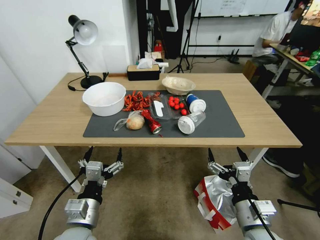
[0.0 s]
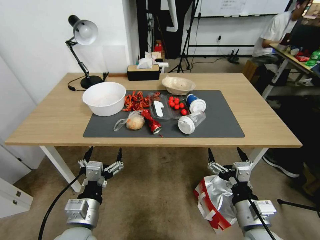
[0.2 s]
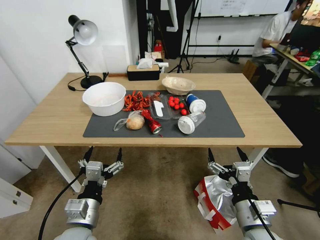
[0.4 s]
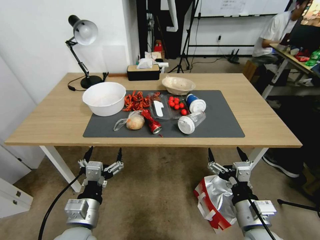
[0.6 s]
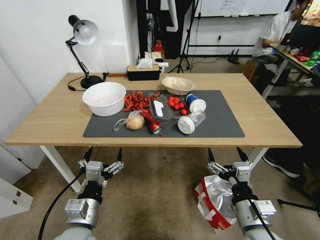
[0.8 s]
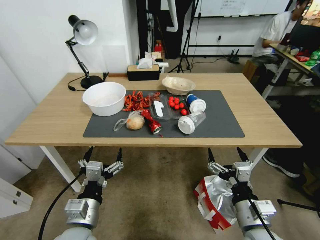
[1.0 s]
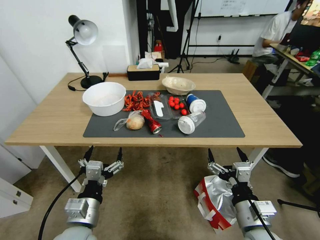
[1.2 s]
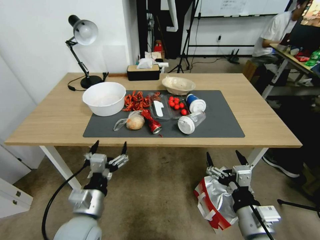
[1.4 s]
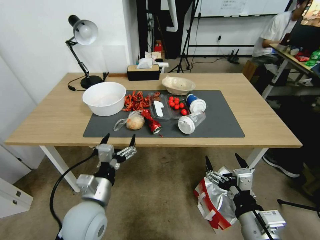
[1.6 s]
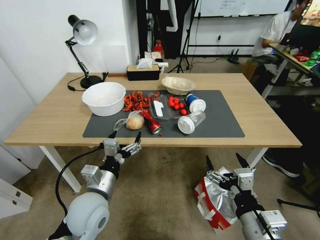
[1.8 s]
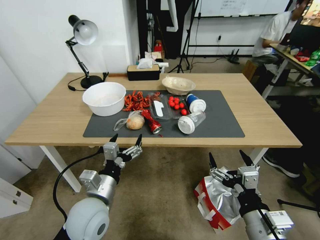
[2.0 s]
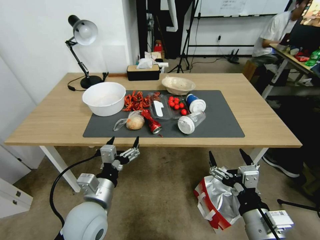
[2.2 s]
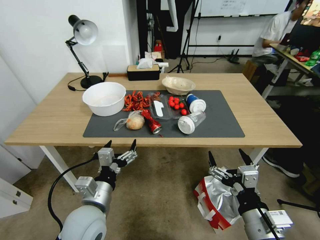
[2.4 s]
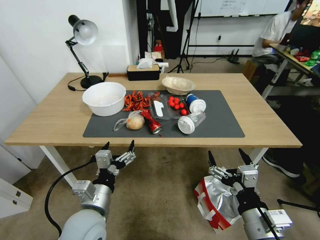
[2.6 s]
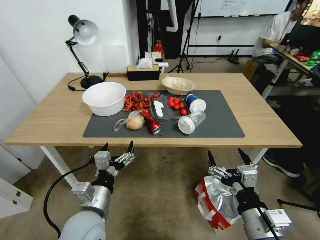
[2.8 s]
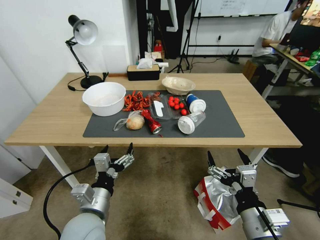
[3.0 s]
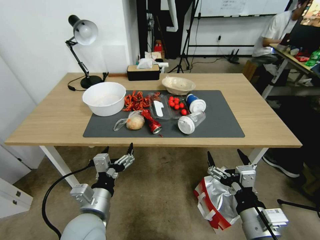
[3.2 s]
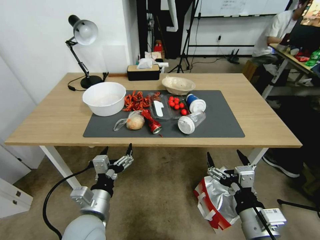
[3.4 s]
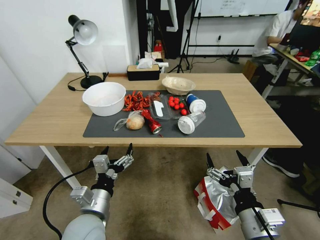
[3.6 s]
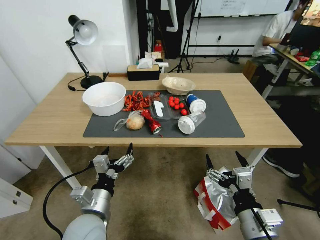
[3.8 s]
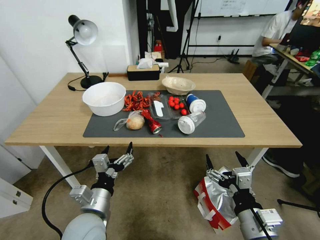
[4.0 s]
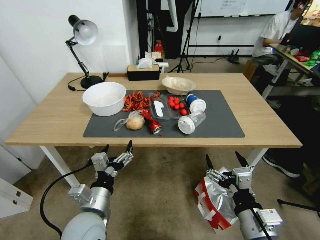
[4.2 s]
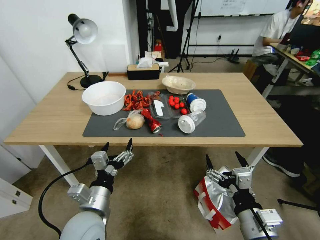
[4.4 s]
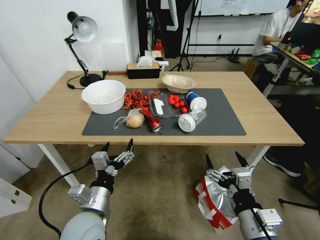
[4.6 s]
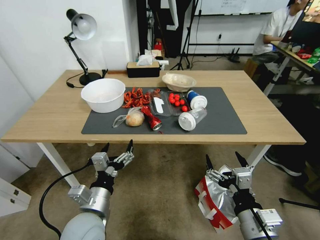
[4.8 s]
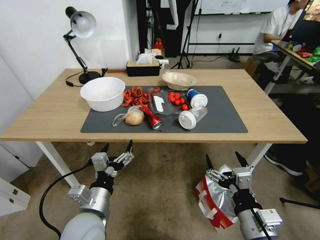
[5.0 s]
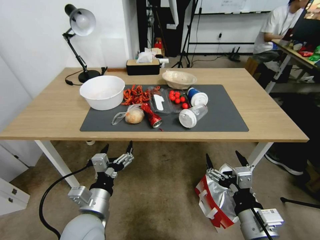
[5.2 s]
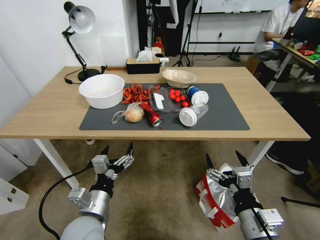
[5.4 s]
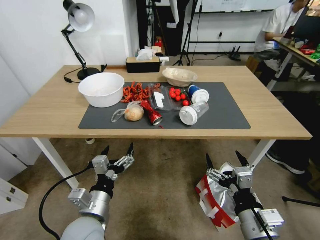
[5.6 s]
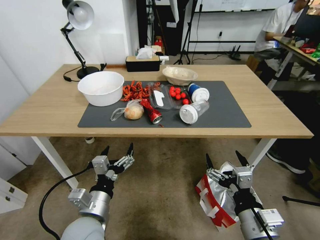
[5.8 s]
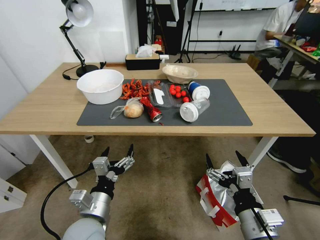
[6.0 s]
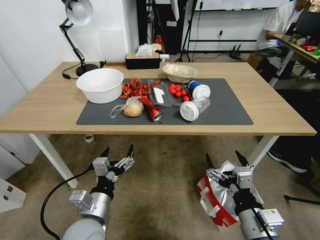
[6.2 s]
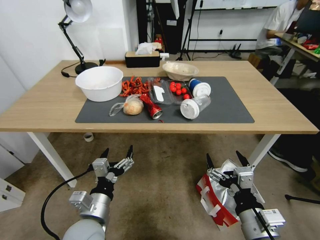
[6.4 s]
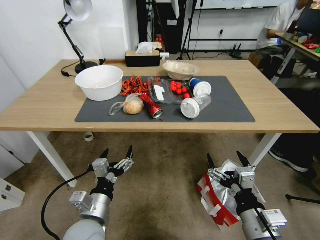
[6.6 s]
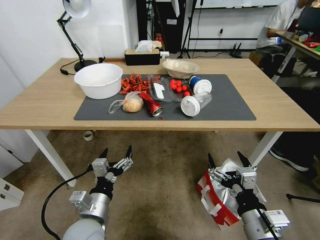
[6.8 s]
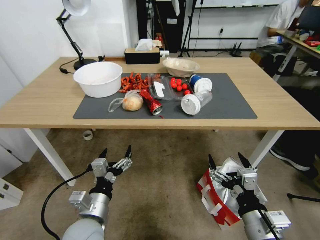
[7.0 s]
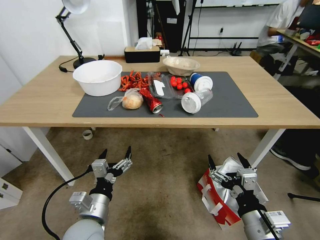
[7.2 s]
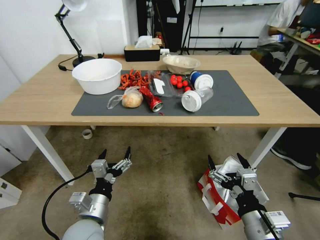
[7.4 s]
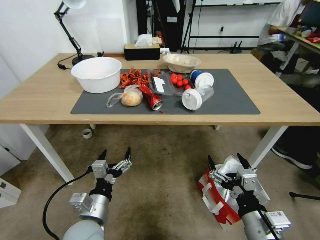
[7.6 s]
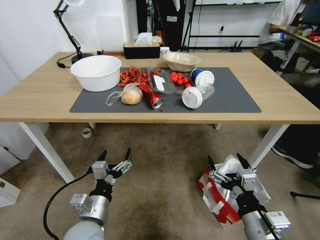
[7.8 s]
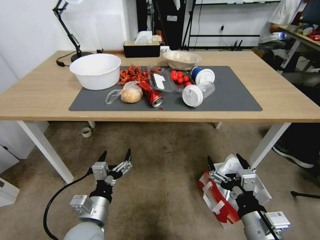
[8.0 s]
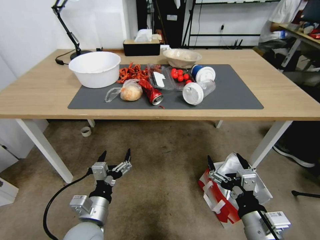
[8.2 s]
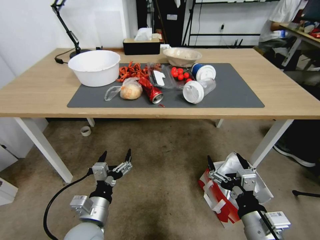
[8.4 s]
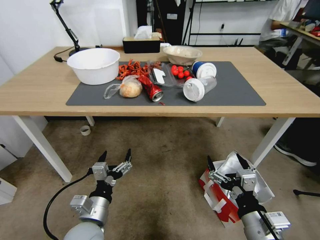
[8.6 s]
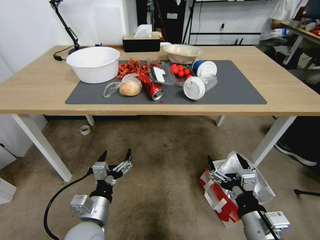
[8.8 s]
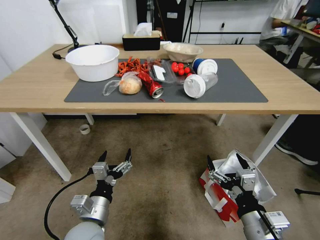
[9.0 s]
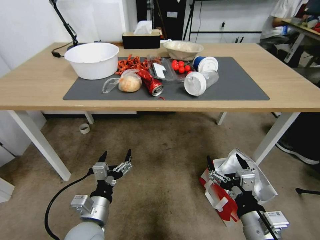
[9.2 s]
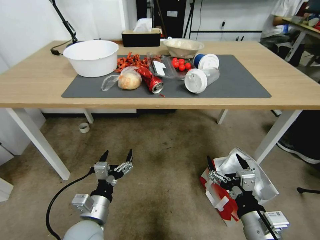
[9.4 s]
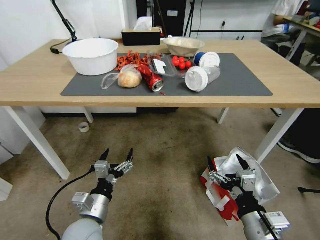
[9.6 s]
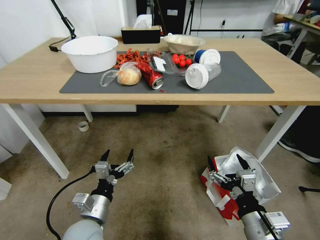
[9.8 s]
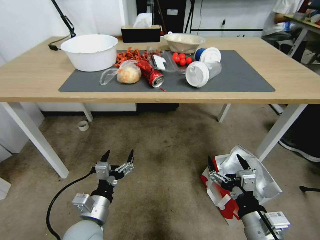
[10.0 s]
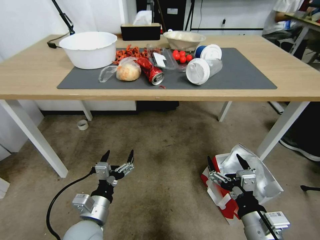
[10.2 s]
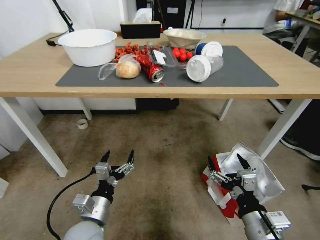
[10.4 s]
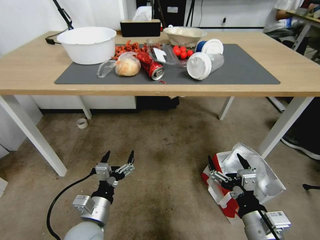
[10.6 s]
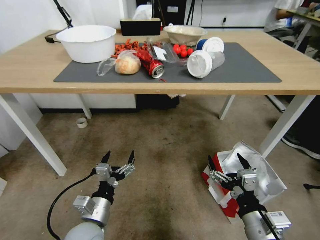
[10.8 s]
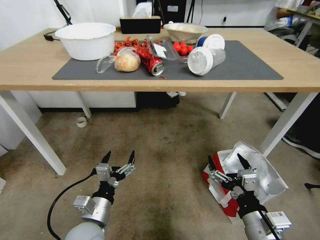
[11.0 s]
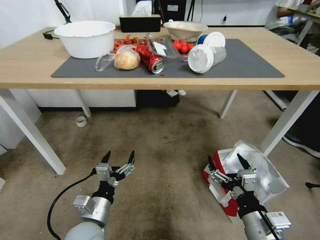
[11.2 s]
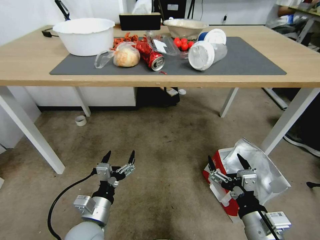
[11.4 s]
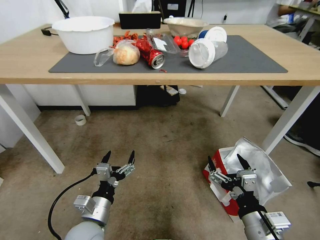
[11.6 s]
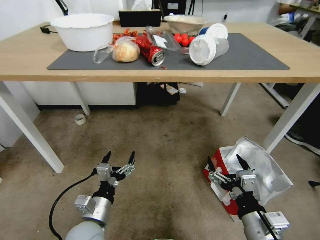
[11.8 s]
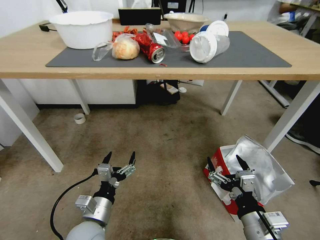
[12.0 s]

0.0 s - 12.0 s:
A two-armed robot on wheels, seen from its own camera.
Task of the whole recording: Pick up the food delivery bag from the floor and place it on the table.
1.6 s - 4.4 s: The grippers stay close to where they were, moving slightly.

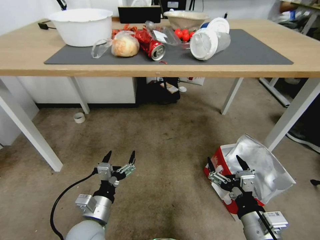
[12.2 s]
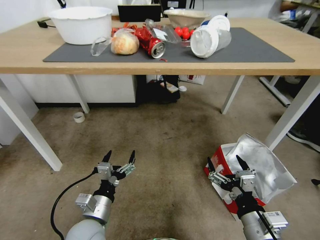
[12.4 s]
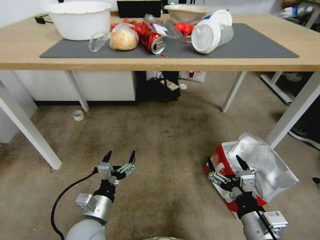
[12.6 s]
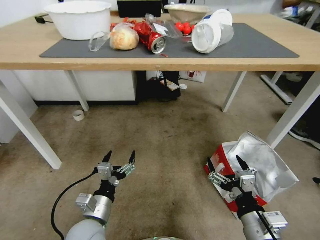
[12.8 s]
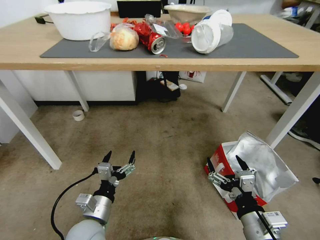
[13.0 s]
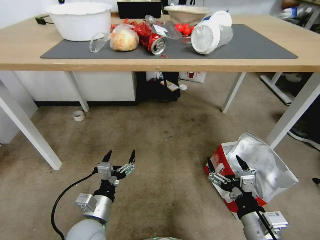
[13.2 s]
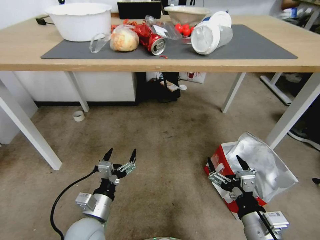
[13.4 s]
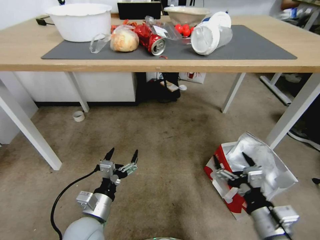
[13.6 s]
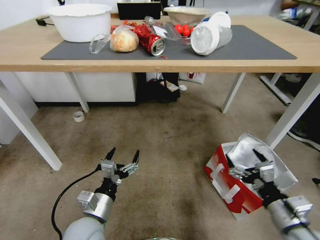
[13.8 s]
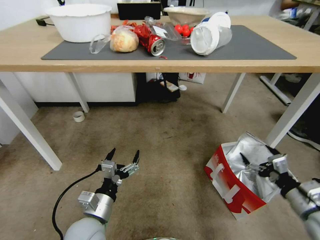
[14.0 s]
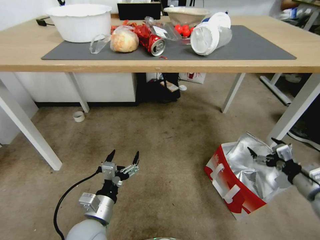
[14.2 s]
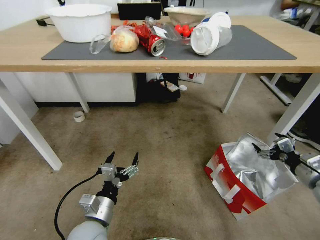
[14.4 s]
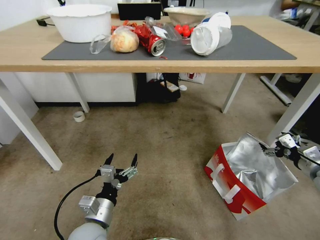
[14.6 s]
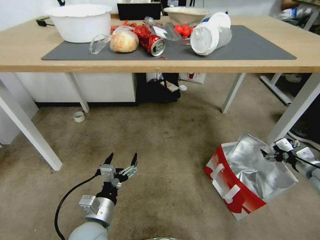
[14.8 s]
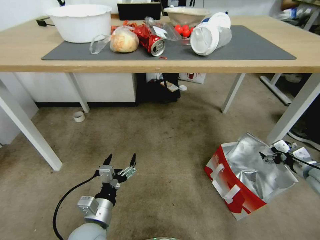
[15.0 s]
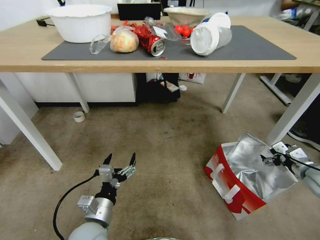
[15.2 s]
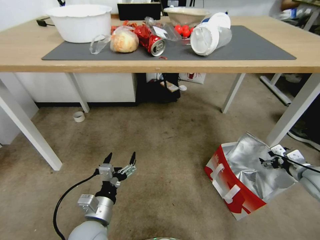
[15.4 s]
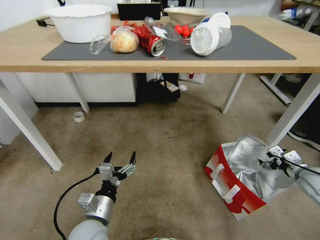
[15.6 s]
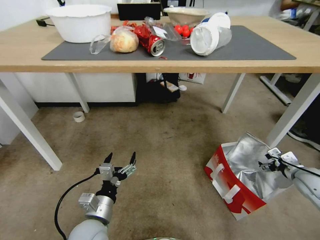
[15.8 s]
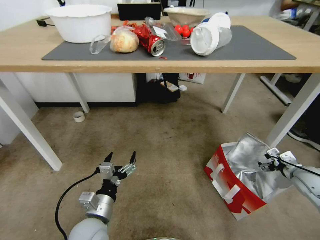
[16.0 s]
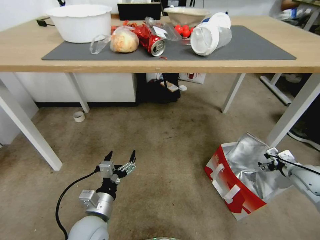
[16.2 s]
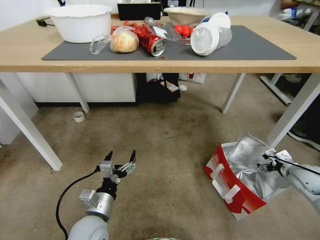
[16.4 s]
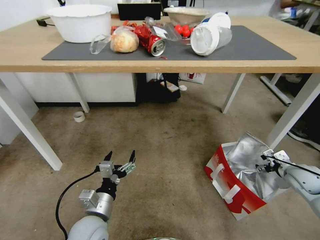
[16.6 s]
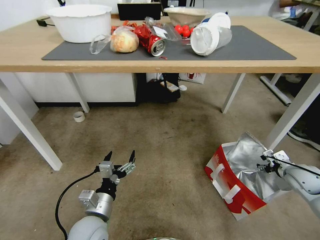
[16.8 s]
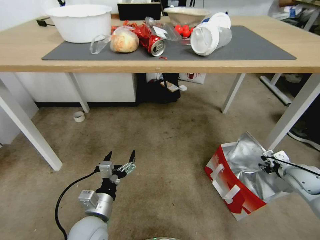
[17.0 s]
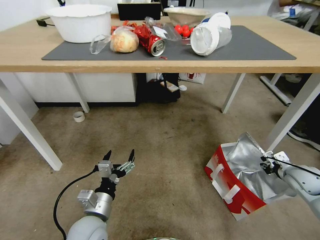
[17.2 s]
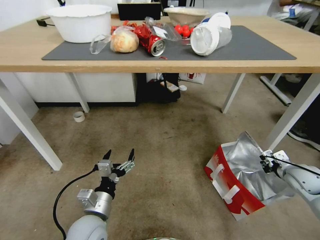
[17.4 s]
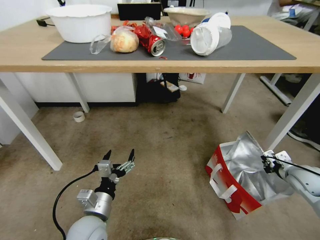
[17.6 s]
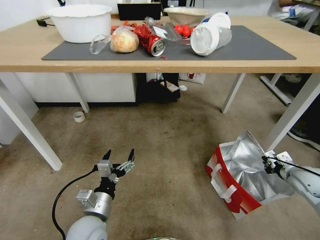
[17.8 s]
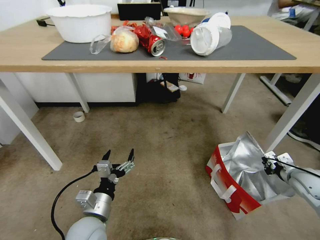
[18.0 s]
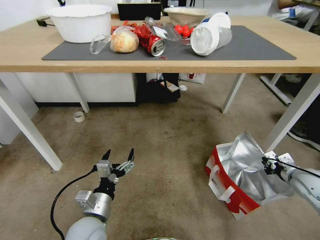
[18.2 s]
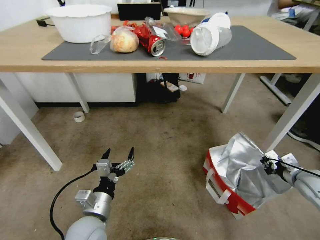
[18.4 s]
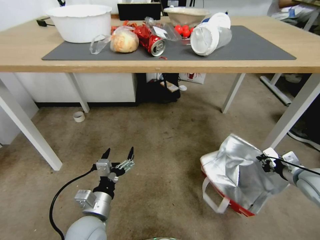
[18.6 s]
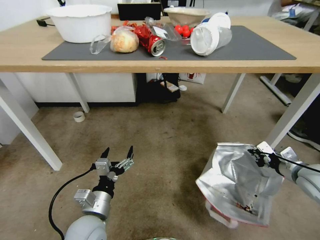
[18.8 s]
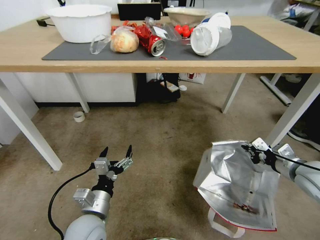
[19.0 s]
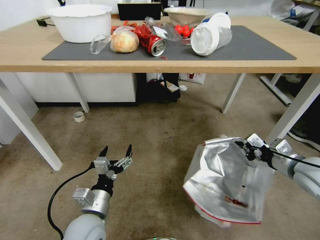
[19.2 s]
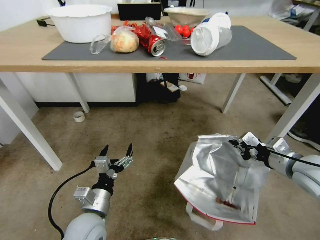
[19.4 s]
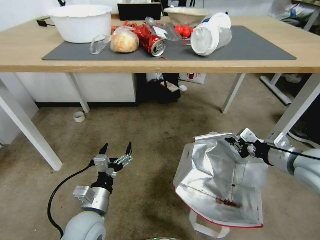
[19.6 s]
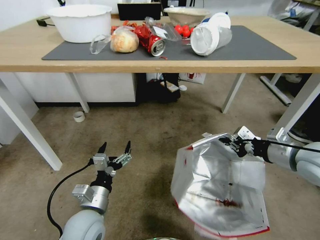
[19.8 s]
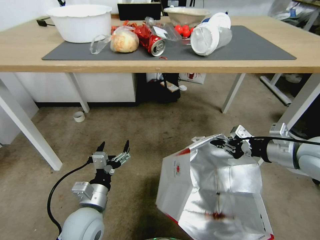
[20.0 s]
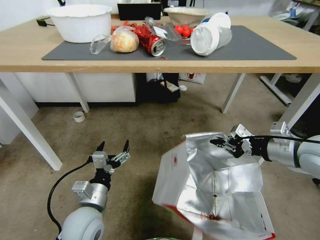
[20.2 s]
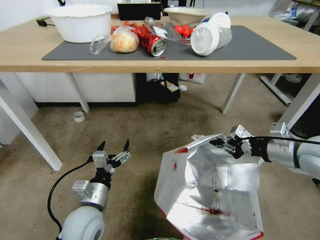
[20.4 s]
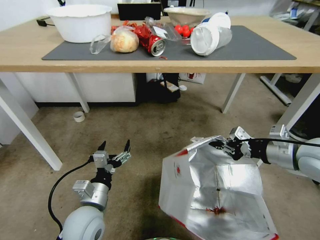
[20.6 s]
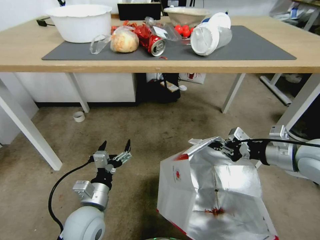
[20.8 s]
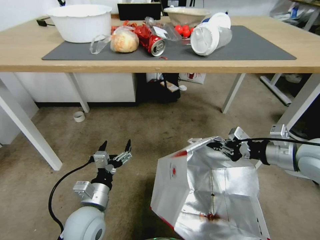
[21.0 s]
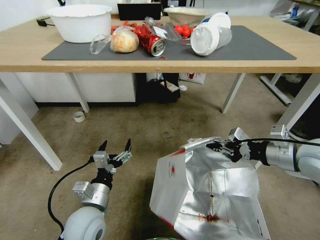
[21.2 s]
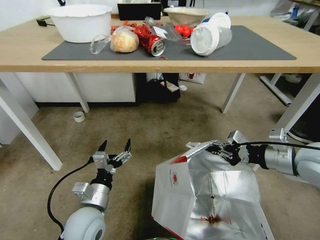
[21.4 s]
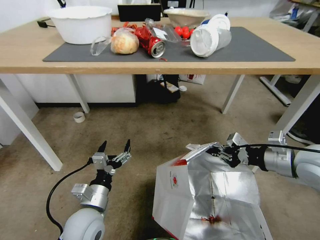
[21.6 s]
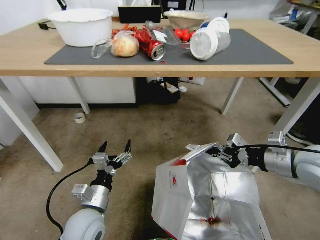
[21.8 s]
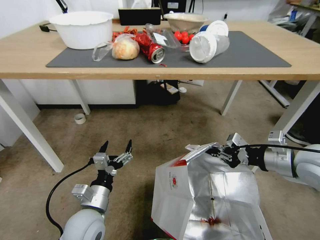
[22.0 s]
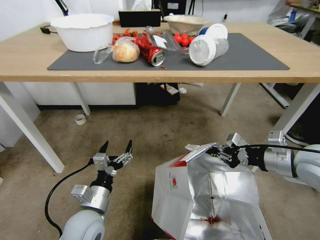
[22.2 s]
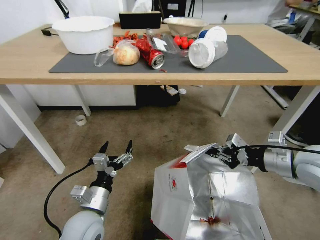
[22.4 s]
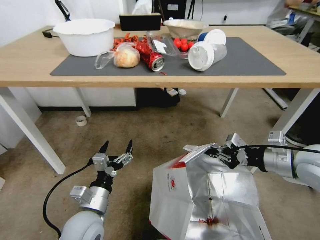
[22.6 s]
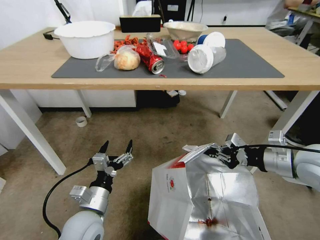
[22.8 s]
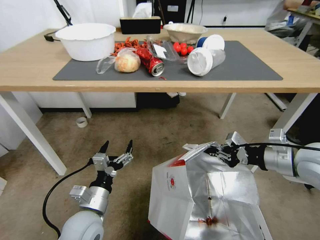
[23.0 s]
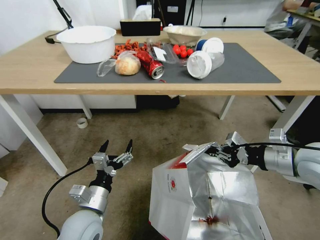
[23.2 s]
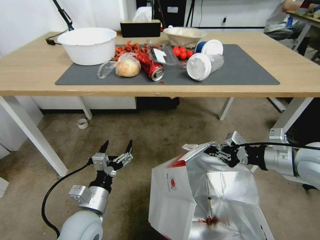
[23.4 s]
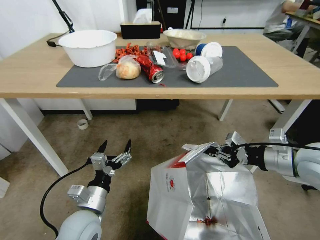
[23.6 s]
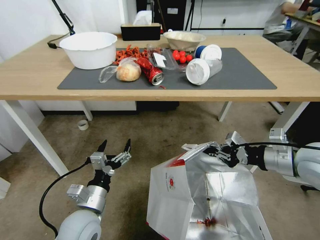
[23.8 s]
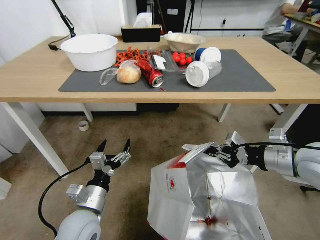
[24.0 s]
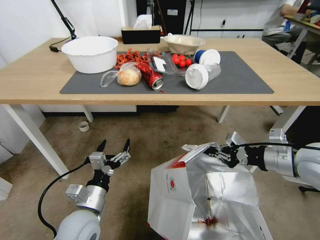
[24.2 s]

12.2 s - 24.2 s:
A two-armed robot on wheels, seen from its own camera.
Task of the whole recording: Pick up the food delivery bag from the floor and place it on the table.
12.2 s - 13.8 s: The right gripper heads to the right, covering some 10 cm.
13.8 s - 15.2 s: The right gripper heads to the right and forward, covering some 20 cm.
15.2 s - 16.6 s: The right gripper ends up some 5 cm from where it was.
16.6 s - 18.2 s: The right gripper closes up.
18.2 s - 19.8 s: The right gripper moves upward and to the left, some 20 cm.
19.8 s - 21.2 s: The grippers make only small movements.
